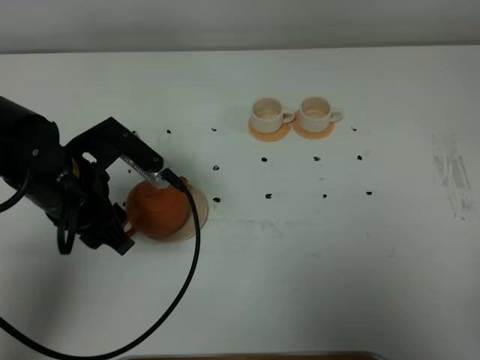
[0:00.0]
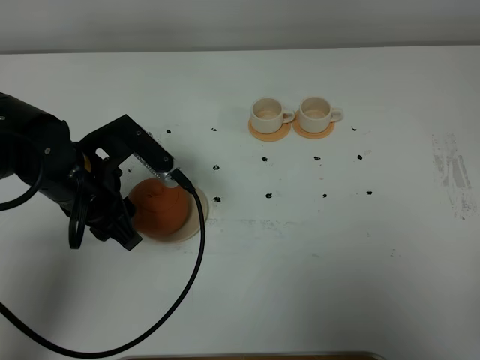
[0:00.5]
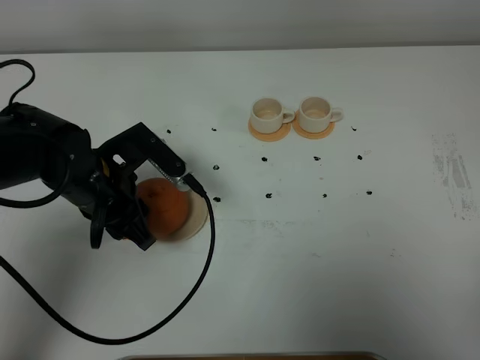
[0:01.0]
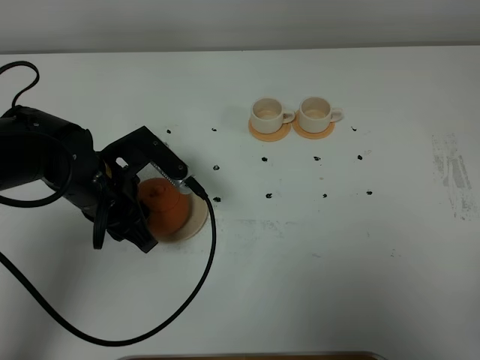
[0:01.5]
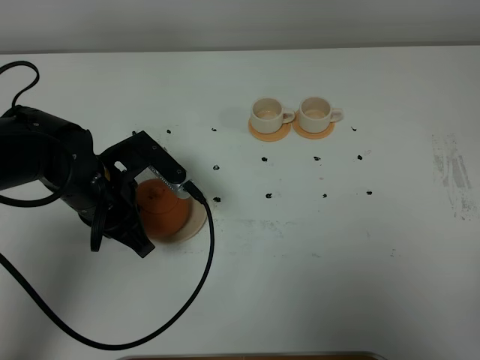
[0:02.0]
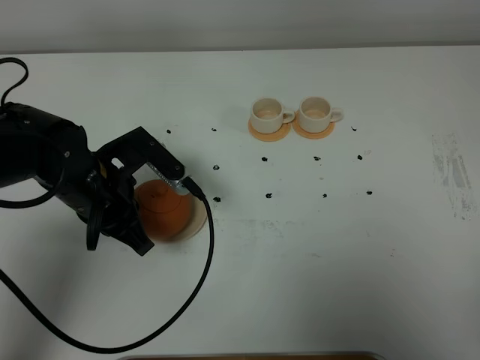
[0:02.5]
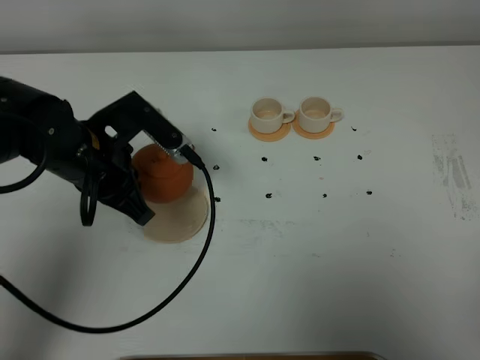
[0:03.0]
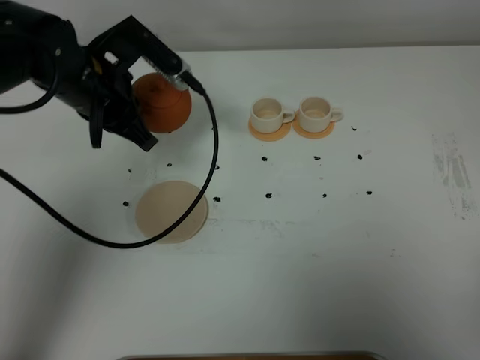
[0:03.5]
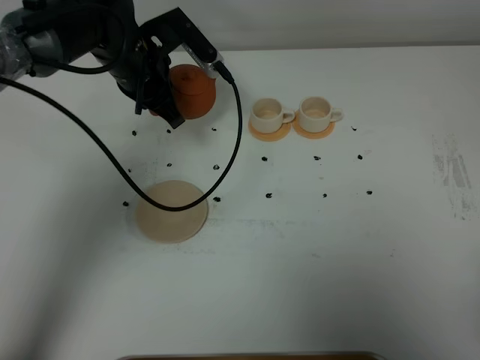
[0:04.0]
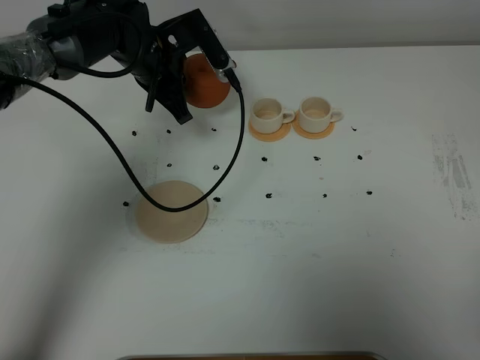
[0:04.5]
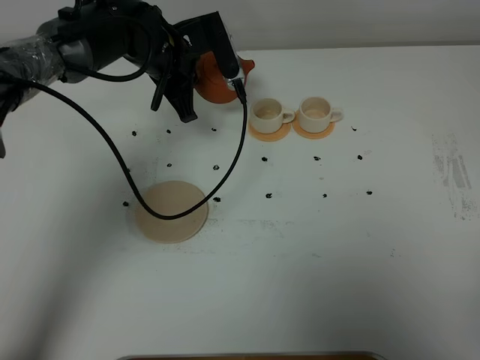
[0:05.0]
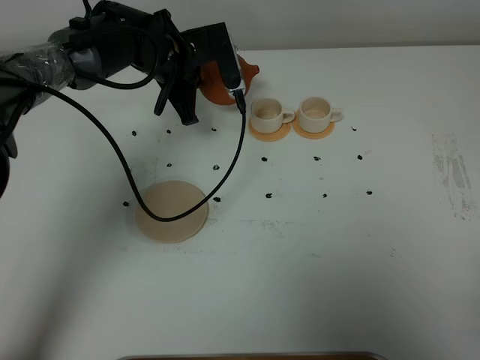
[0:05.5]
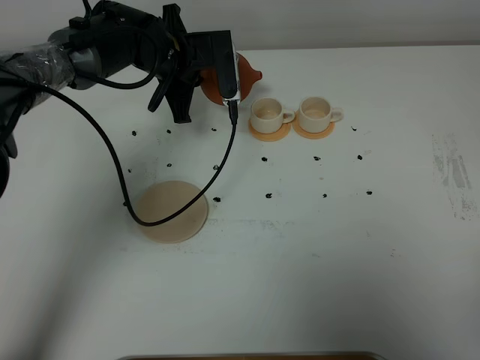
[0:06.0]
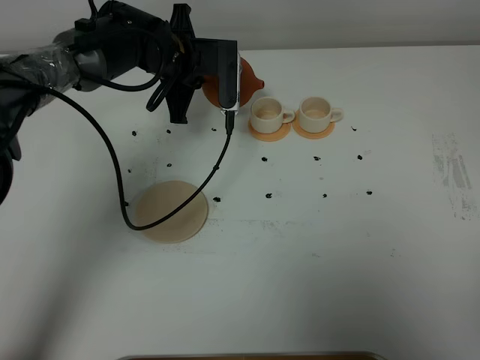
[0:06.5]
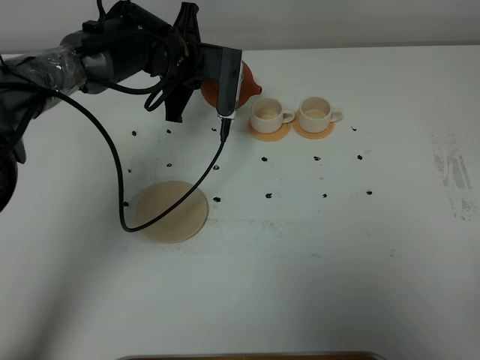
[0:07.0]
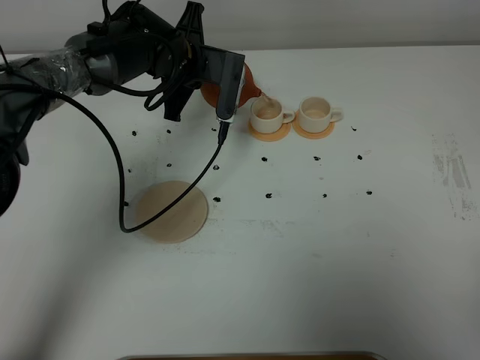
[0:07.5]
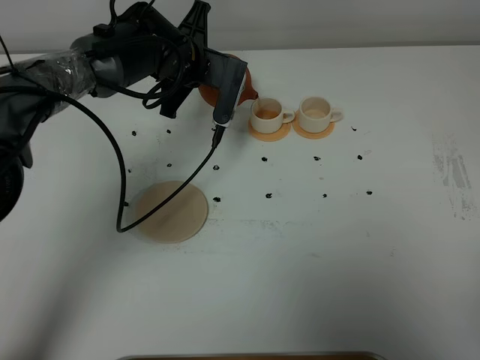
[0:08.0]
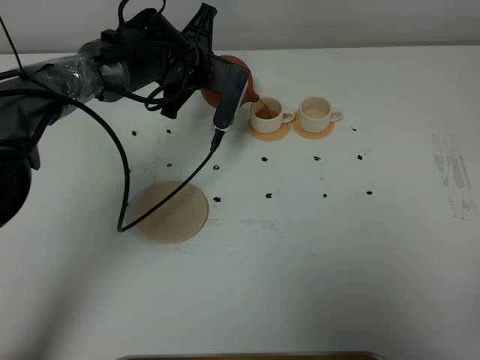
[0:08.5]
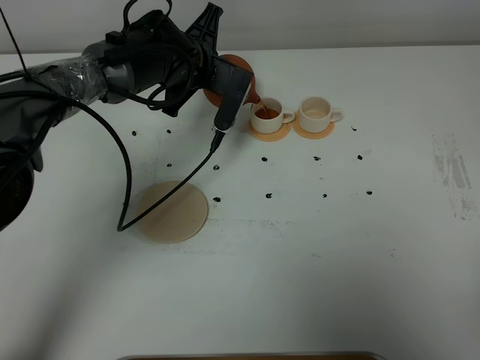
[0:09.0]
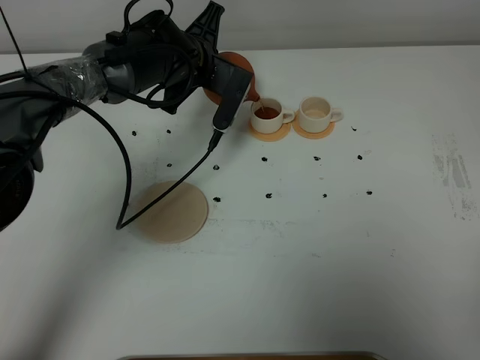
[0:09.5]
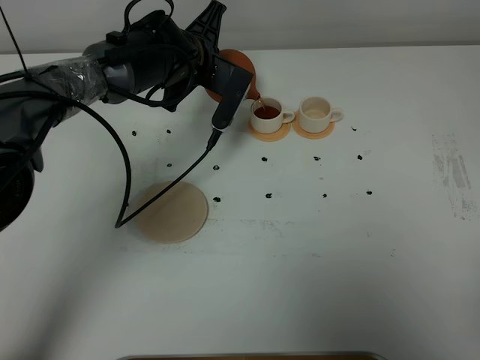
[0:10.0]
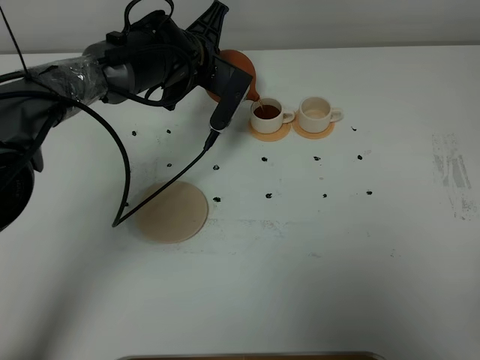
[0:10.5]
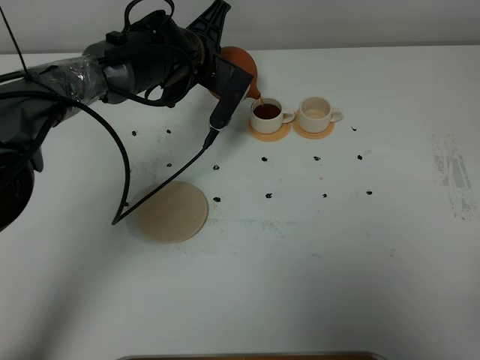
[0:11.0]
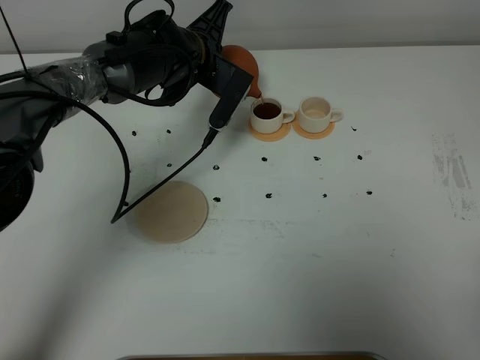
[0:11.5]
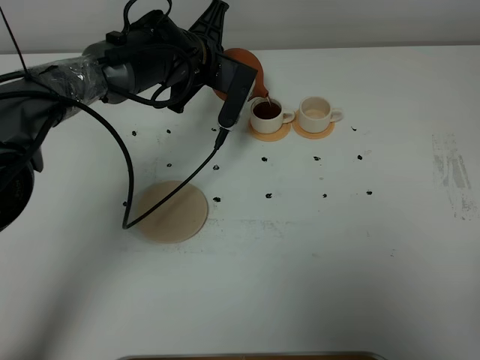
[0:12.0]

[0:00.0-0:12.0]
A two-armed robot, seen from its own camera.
Task of the whole recording: grasp the brown teapot and pour the tea into the two white teacups one by one, put the brown teapot back in its original place.
Step, 0:00.0 to 0:02.5: Pick up the teapot with the left gripper.
0:00.0 to 0:02.0: The left gripper closes.
0:02.0 to 0:04.0: The left gripper heads forward, covering about 15 cm.
0:08.0 to 0:12.0: The grippers move only a little.

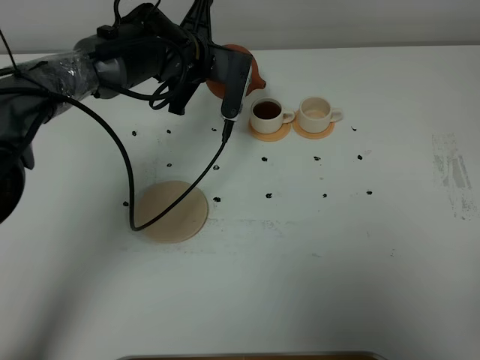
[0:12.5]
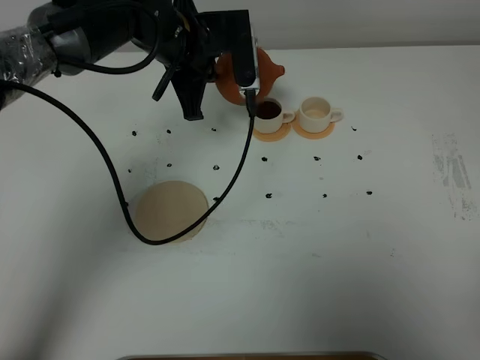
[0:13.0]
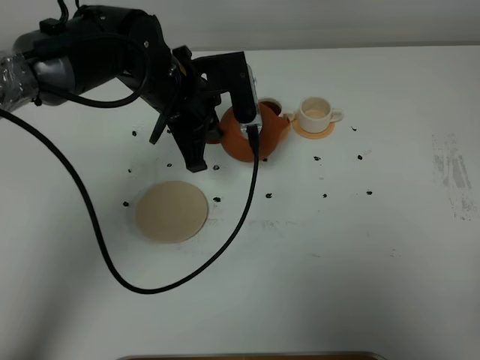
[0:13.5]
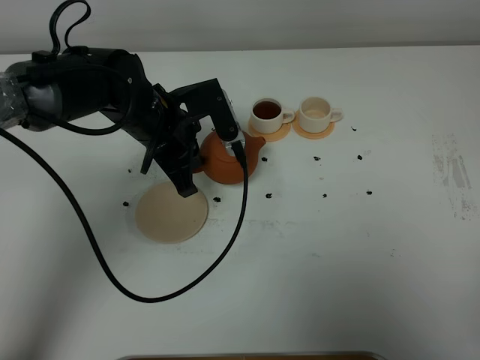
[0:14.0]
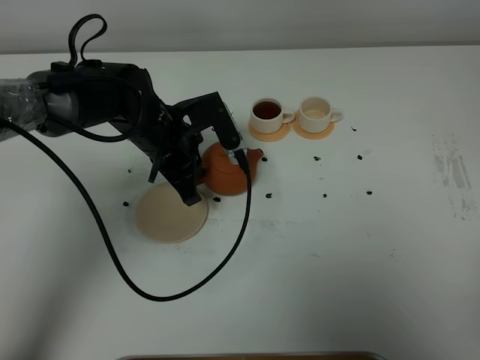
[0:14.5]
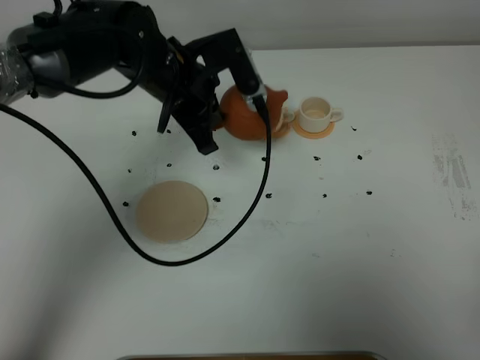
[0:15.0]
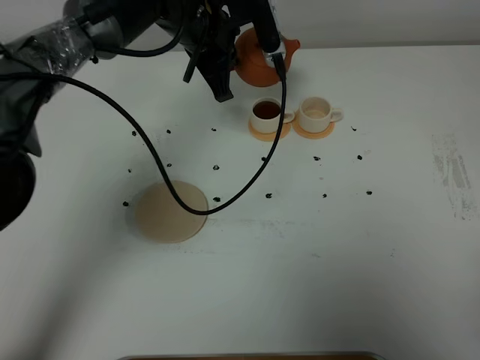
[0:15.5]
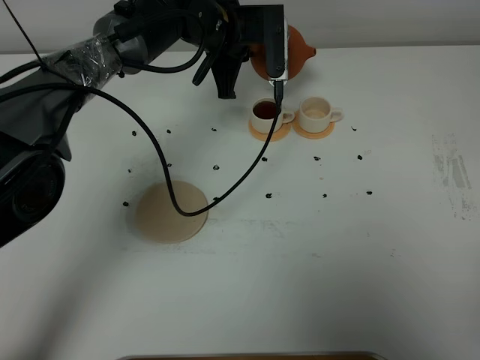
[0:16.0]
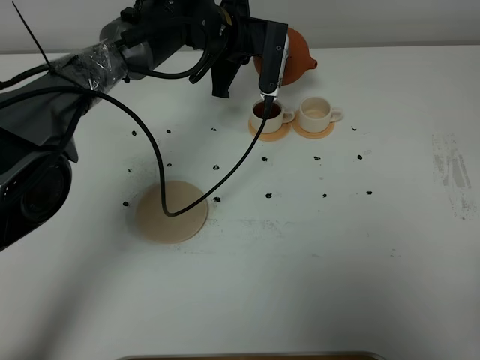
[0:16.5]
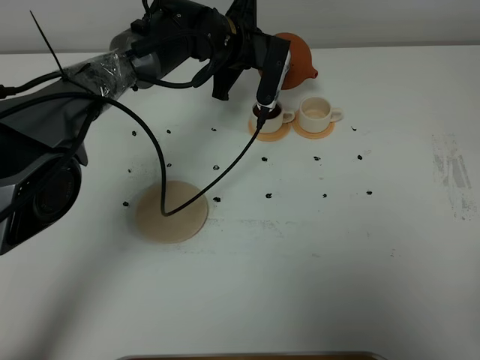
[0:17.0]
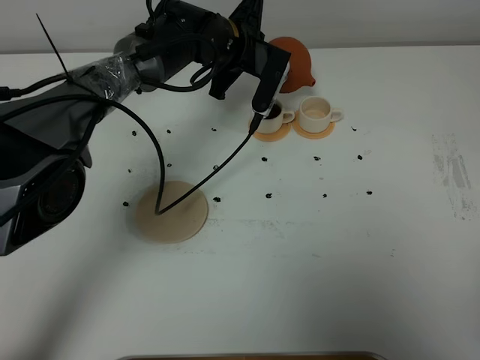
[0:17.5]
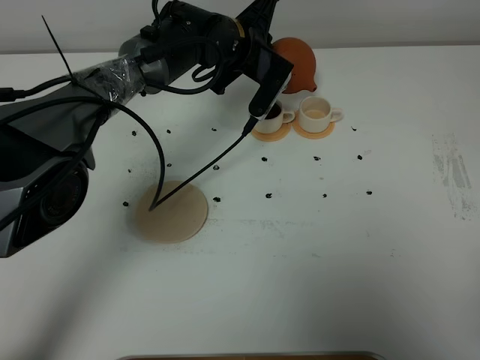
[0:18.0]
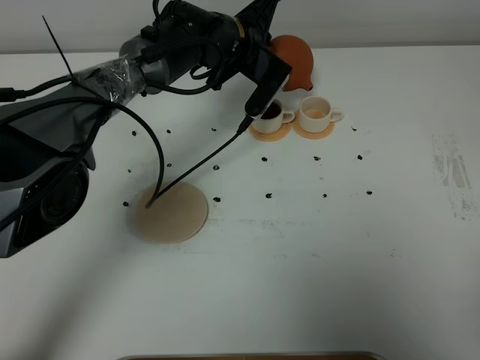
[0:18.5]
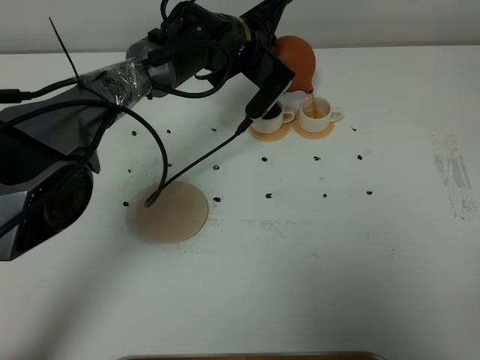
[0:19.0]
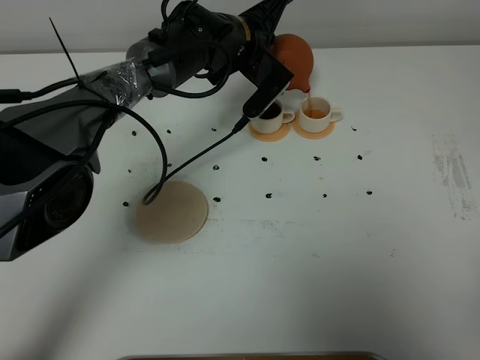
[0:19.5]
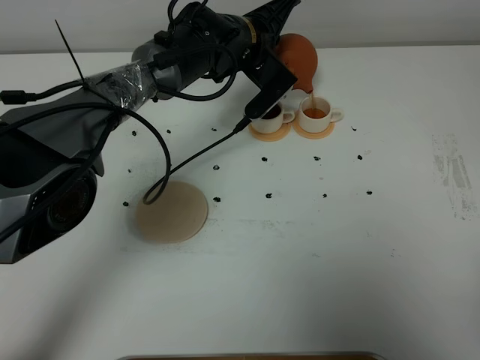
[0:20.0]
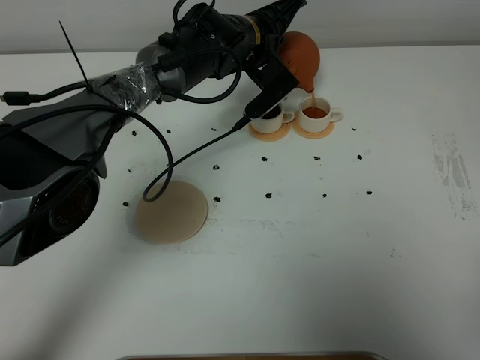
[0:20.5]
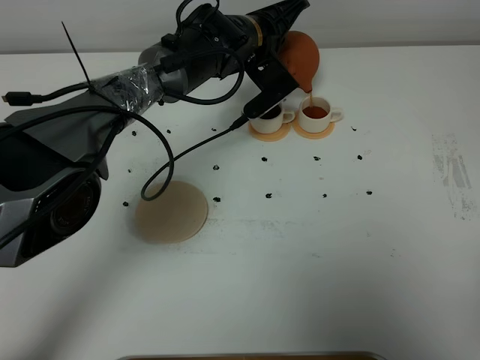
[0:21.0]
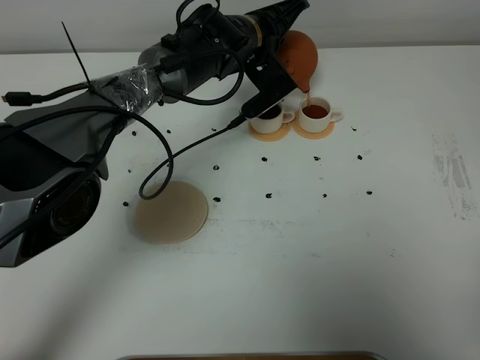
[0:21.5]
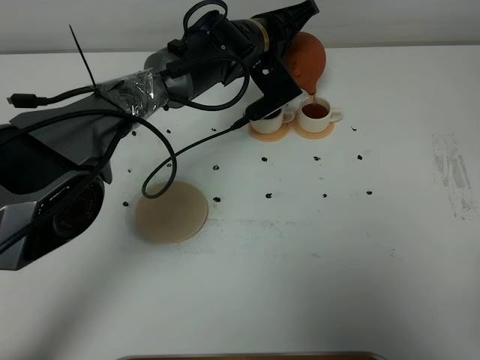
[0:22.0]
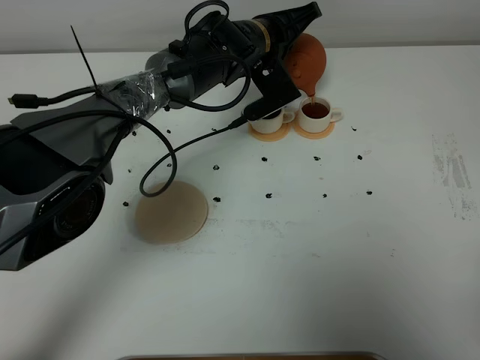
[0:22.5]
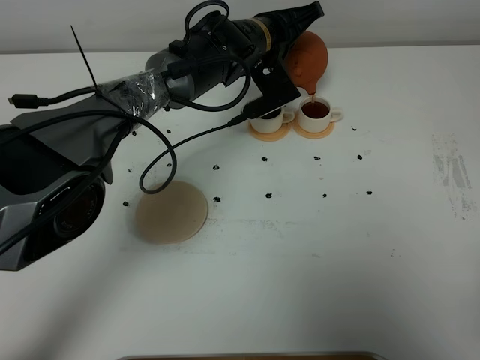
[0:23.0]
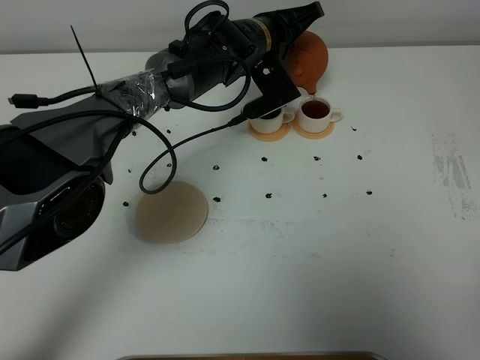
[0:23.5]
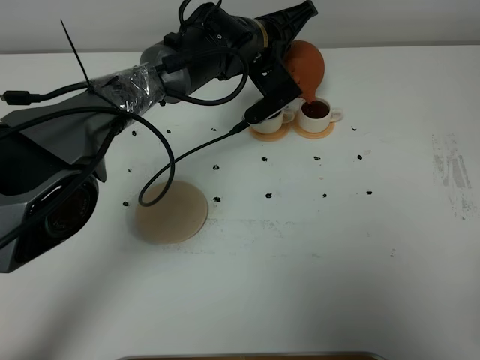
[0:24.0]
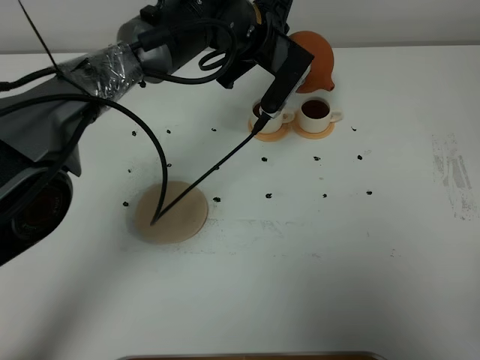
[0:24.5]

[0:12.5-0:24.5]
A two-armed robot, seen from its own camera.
Task of the whole recording: grasp the brown teapot and pour the tea into the two white teacups one by one, put the brown teapot back in its original place.
Step, 0:13.0 to 0:24.0: Pour tea into the teacup with the left gripper.
0:12.5 to 0:14.5: The left gripper is displaced backward by some 10 cm.
0:14.5 to 0:16.5: The left gripper is displaced forward, to the right and upward by approximately 15 cm.
0:18.5 to 0:20.5: The grippers make only small movements.
0:20.5 to 0:22.5: There are only small adjustments of the grippers.
0:22.5 to 0:24.5: The left gripper changes place by about 5 cm.

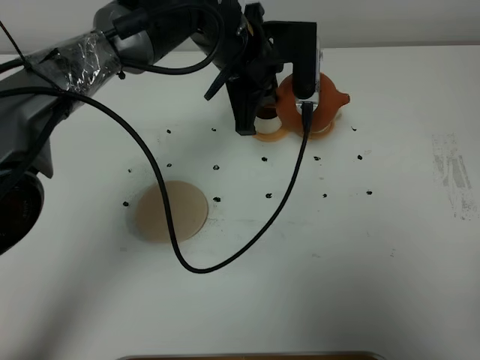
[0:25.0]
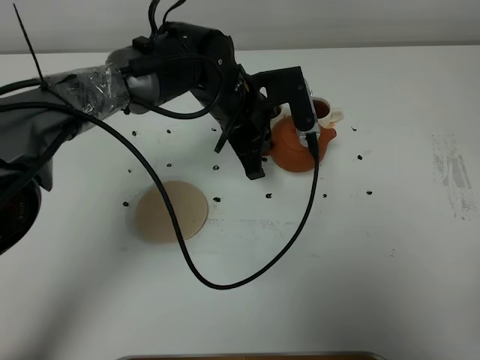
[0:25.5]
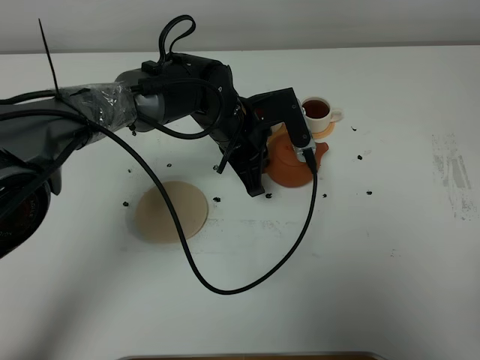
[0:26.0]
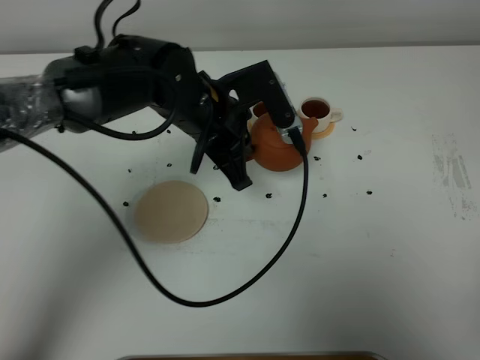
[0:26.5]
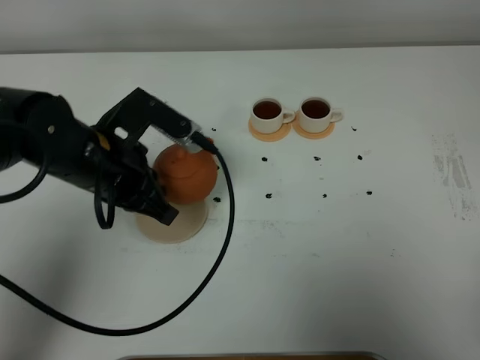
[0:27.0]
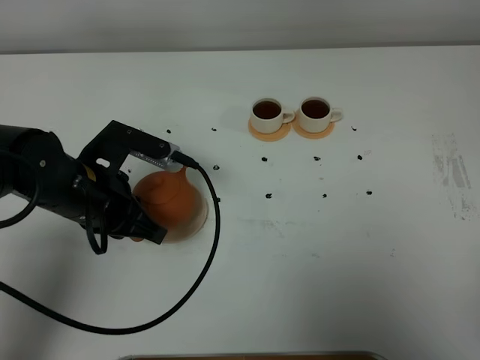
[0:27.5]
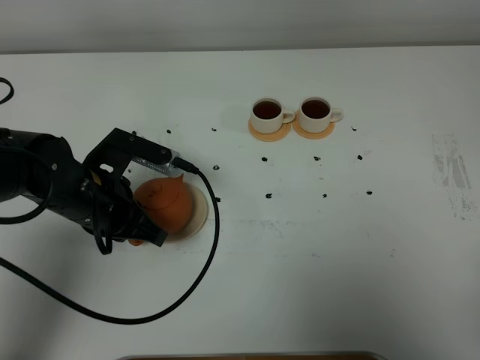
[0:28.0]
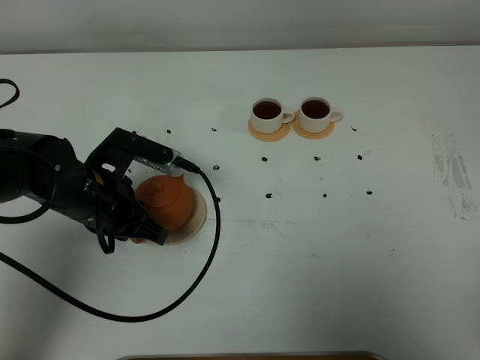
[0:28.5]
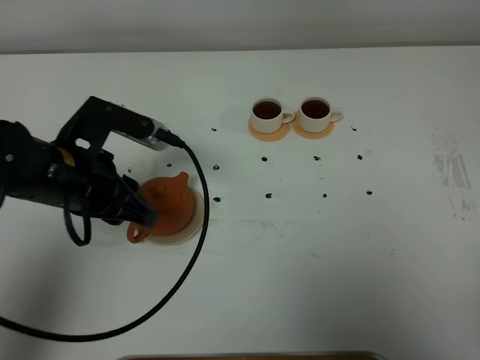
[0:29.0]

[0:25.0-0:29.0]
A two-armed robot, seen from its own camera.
Task of the whole recording: grasp the brown teapot and pour the tea into the two white teacups one by one, put the brown teapot back in its original place.
0:25.0 to 0:27.0: The left gripper is displaced to the left and backward by approximately 20 cm.
0:27.0 to 0:29.0: The left gripper opens.
